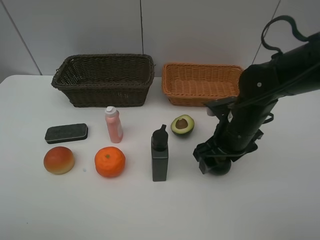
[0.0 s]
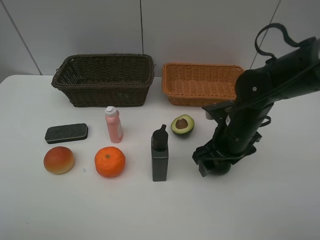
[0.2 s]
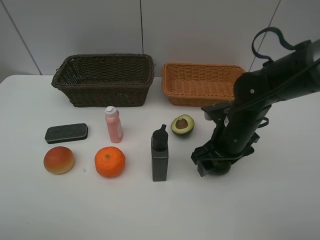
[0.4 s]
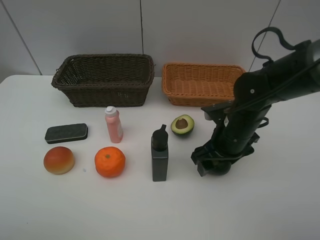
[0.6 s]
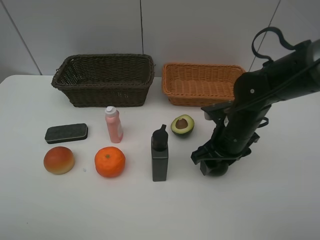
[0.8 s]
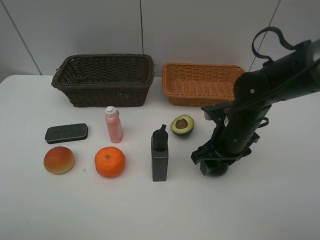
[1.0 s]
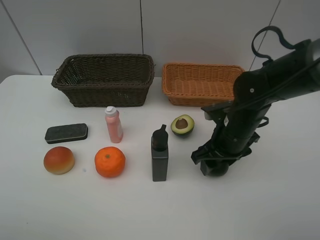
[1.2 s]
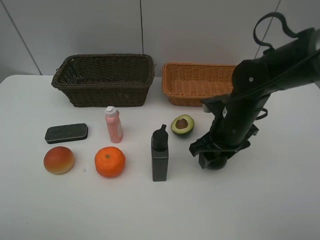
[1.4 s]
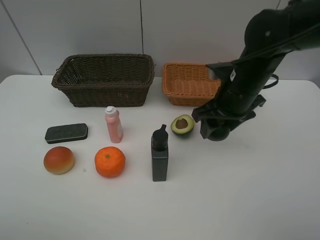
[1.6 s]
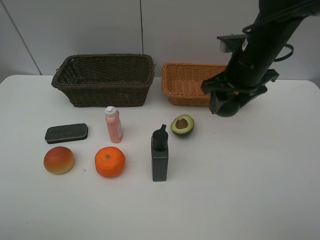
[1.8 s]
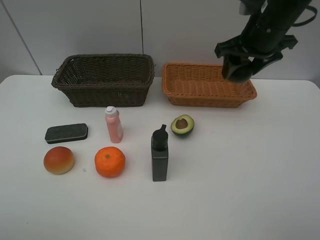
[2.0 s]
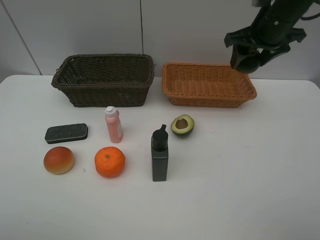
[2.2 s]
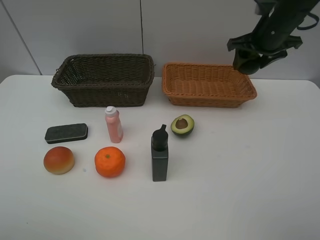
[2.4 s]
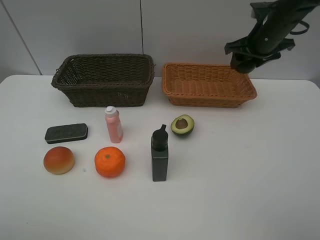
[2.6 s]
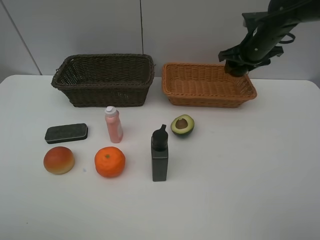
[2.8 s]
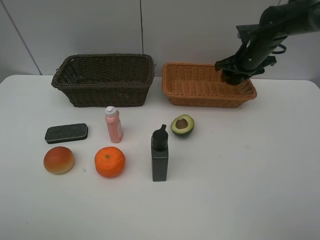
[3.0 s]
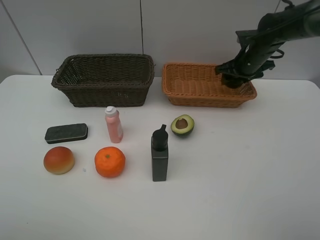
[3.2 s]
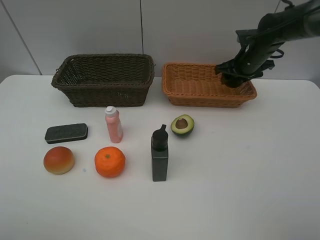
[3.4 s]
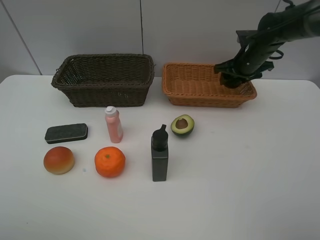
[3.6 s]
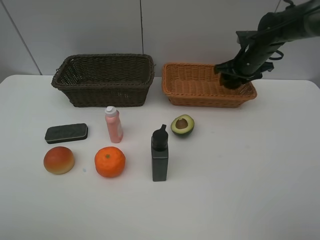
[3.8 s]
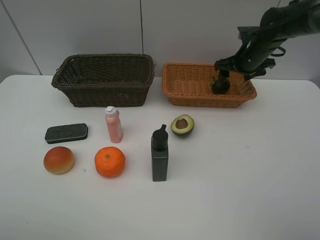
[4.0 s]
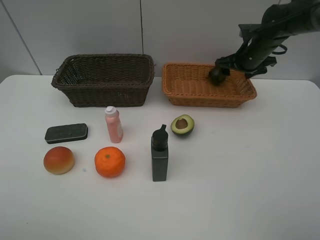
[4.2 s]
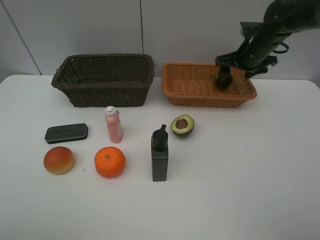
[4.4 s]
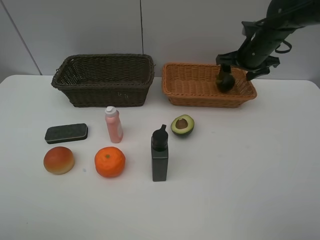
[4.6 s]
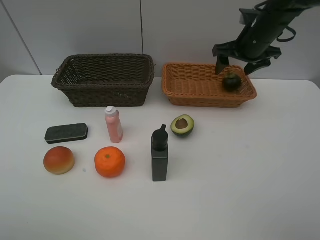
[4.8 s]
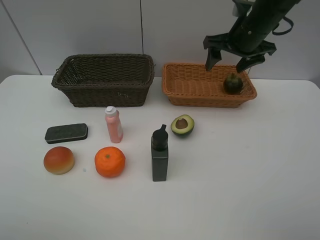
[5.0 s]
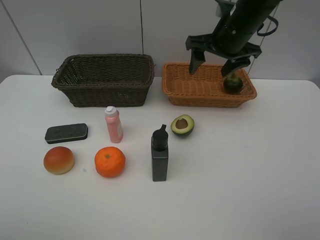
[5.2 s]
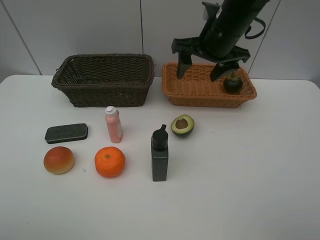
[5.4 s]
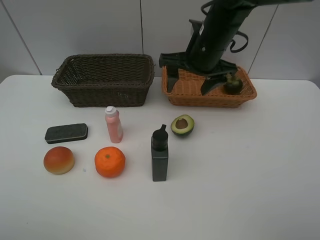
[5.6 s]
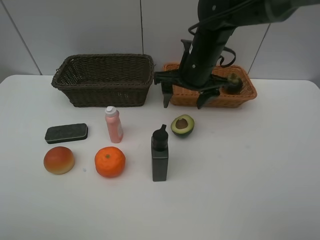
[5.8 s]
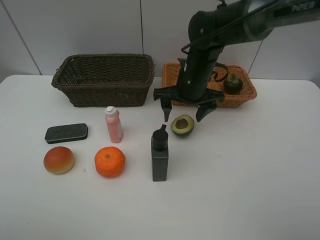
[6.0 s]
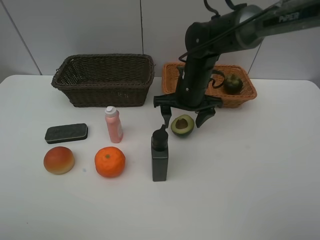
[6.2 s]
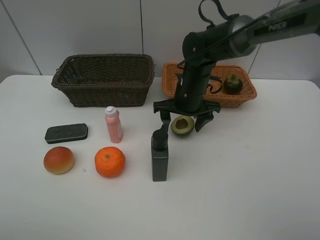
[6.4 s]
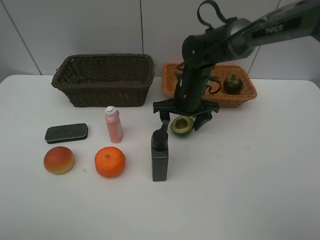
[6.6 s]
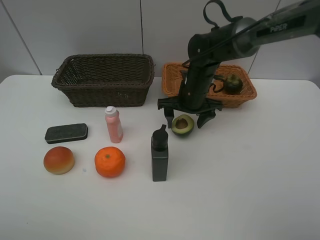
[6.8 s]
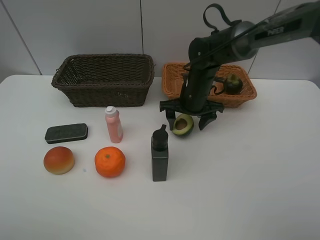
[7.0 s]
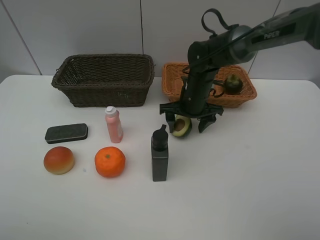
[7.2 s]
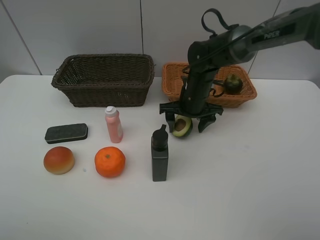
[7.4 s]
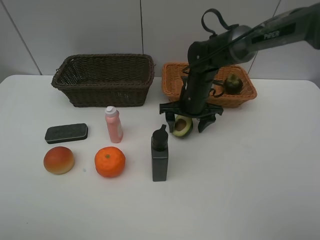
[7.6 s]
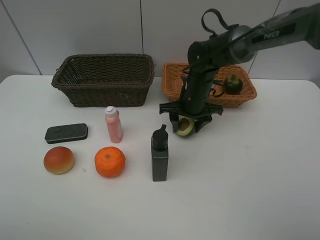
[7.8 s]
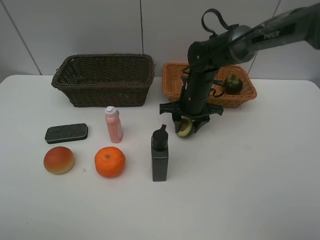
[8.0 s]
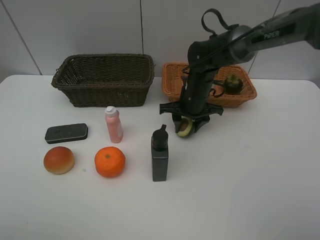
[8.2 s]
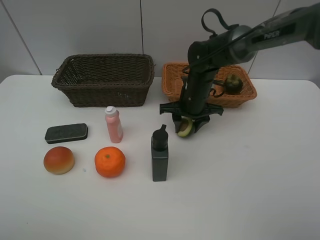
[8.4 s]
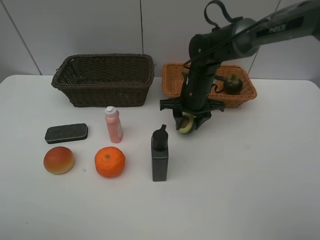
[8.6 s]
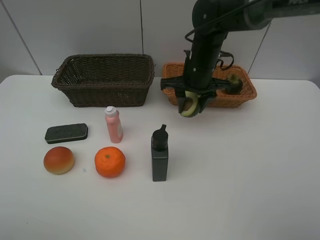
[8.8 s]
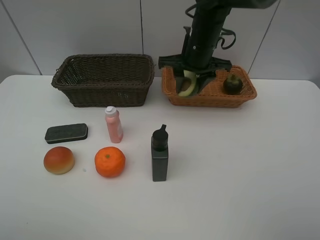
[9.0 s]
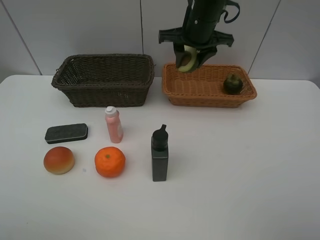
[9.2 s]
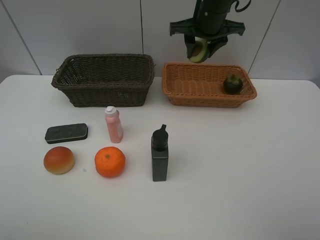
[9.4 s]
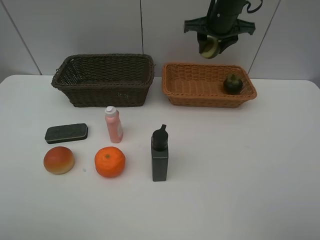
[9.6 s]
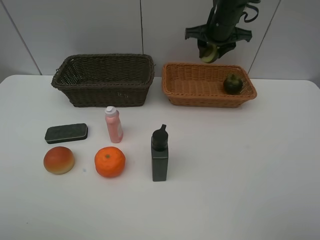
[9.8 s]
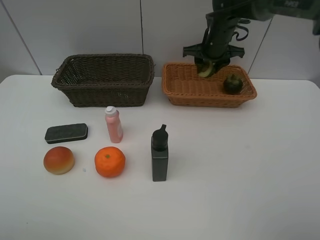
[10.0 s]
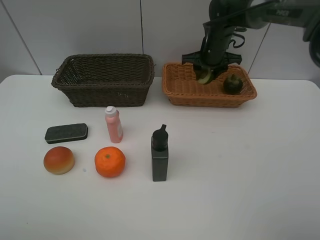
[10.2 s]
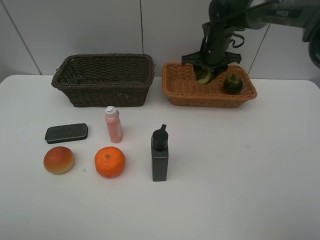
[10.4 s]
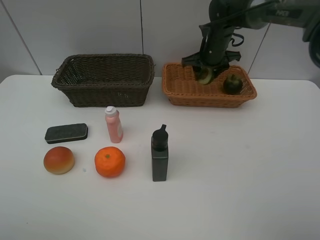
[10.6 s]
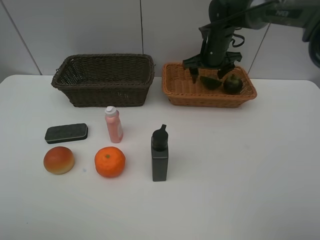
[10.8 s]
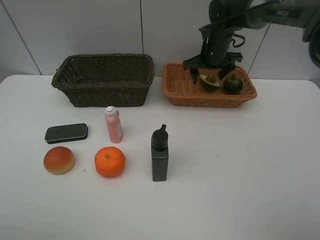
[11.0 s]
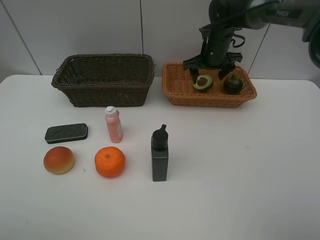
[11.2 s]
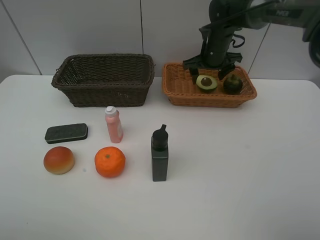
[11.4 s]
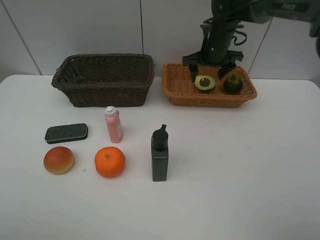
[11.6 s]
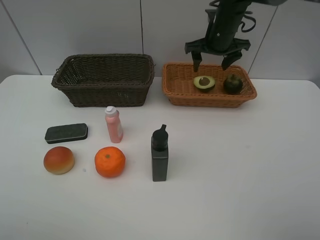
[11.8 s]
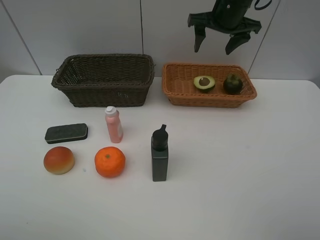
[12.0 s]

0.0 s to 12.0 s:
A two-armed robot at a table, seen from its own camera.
Task of the whole recording: Place multiple objects separately in different baskets.
Step, 1.6 to 4.2 s: Place the mangosteen in the light basket with right gripper.
Step, 4.4 to 8.6 s: Pick up the avocado with right gripper.
Step, 8.8 to 10.8 s: Place the avocado in the light basket with right gripper.
0.0 to 1.6 s: The right gripper shifts some 10 cm upward.
1.6 to 3.0 s: The right gripper is displaced forward and to the right by some 20 cm.
3.0 to 4.4 s: The grippers stay close to where they were, moving slightly.
4.4 to 6.0 s: The right gripper goes about 20 cm to the left and backward.
6.0 to 7.6 s: The right gripper is displaced downward by some 5 cm.
7.6 to 9.0 s: The right gripper goes about 10 cm upward, and closes its fingers.
9.0 to 10.4 s: The right gripper is displaced forward, to the right and downward by approximately 10 cm.
10.4 to 12.0 s: The right gripper heads upward and backward, covering roughly 15 cm, and opens up.

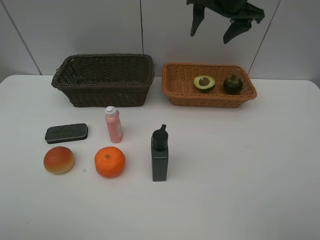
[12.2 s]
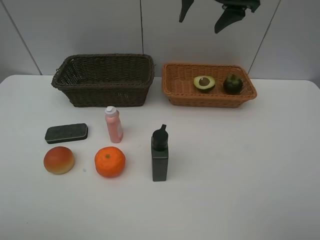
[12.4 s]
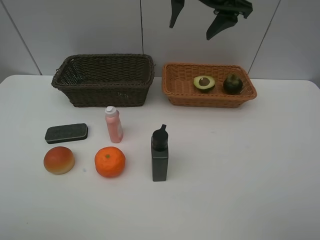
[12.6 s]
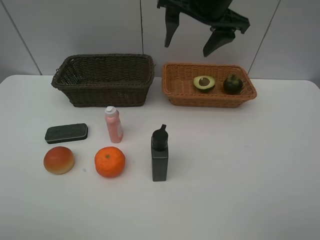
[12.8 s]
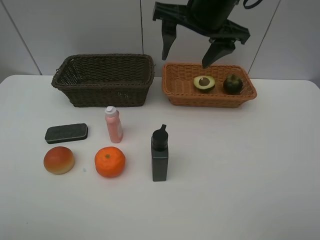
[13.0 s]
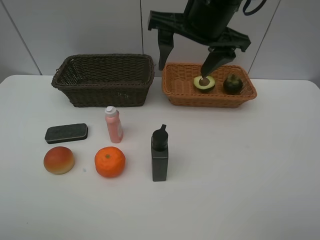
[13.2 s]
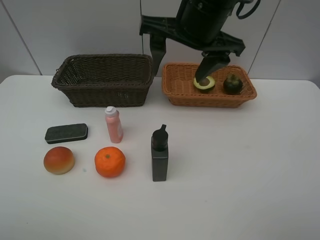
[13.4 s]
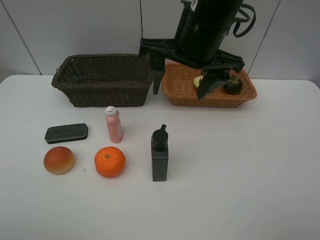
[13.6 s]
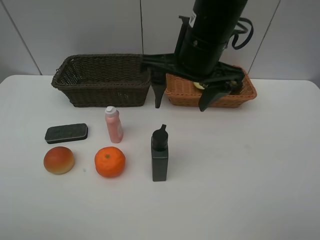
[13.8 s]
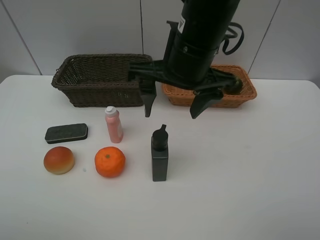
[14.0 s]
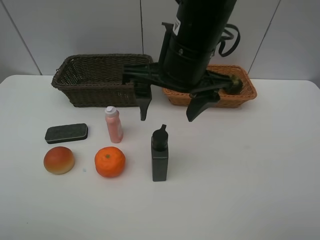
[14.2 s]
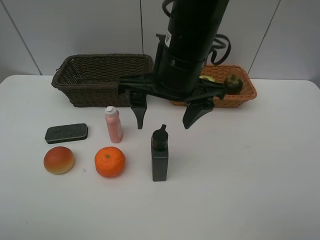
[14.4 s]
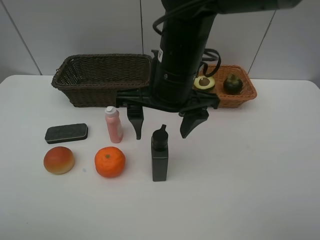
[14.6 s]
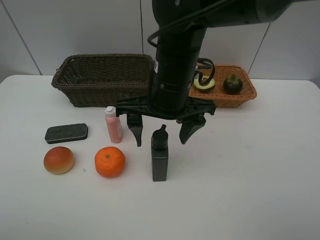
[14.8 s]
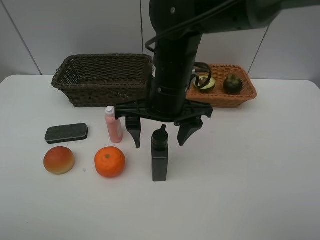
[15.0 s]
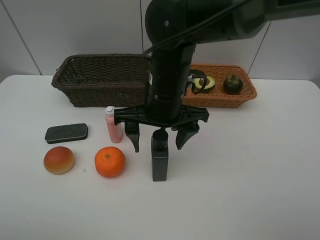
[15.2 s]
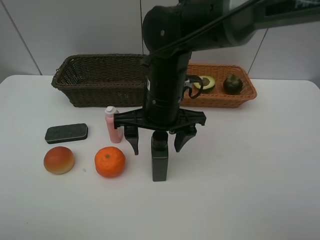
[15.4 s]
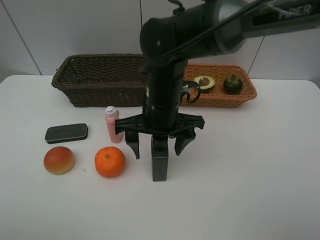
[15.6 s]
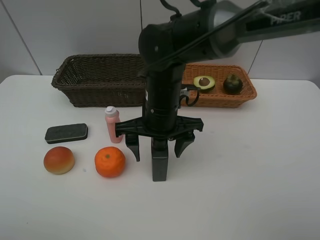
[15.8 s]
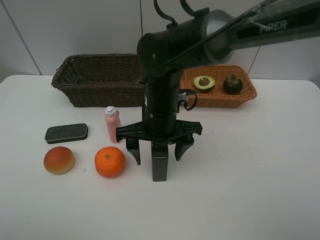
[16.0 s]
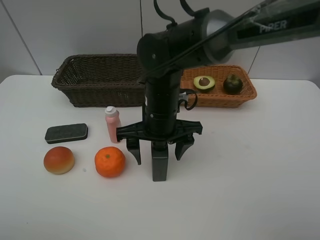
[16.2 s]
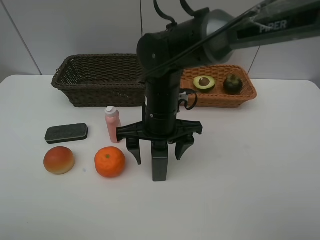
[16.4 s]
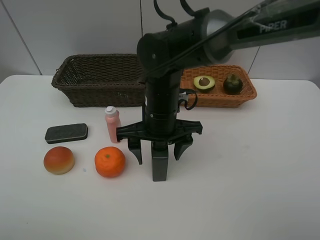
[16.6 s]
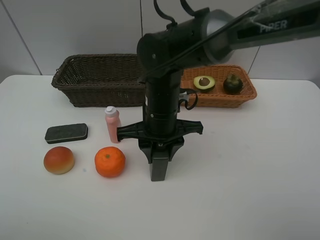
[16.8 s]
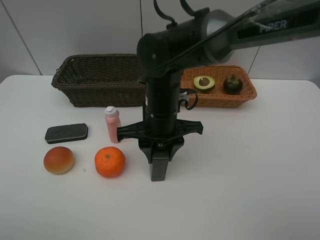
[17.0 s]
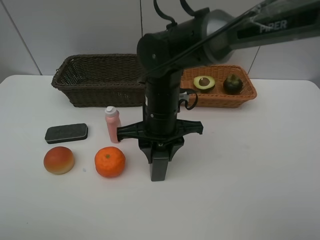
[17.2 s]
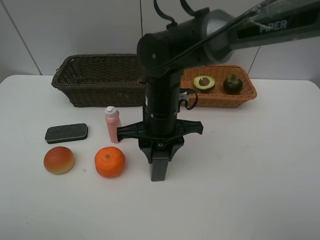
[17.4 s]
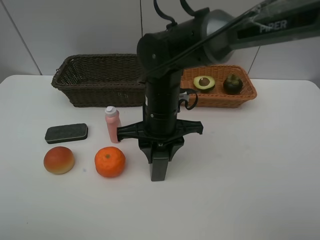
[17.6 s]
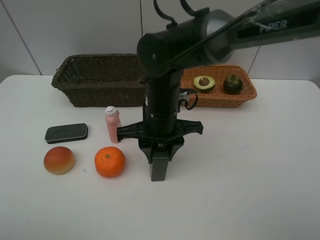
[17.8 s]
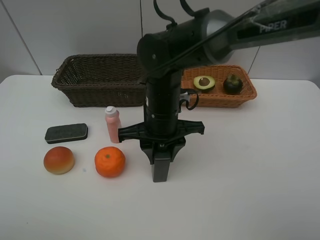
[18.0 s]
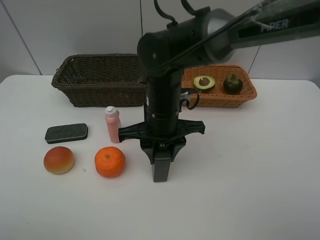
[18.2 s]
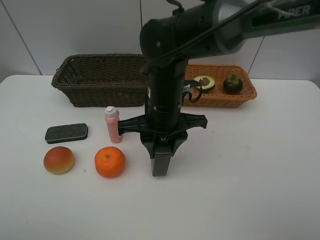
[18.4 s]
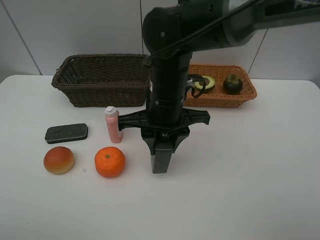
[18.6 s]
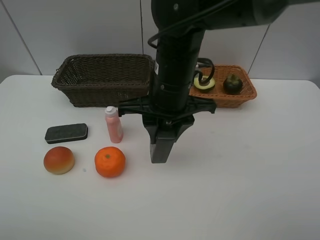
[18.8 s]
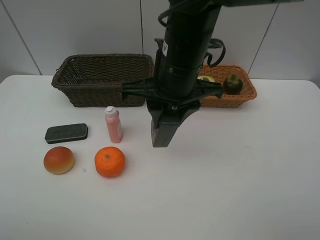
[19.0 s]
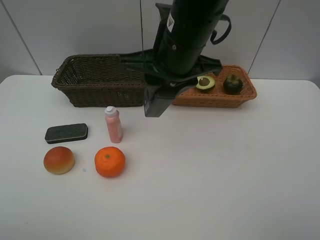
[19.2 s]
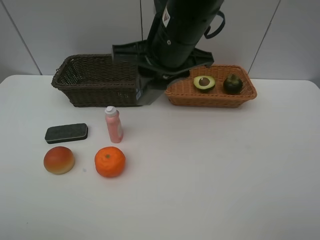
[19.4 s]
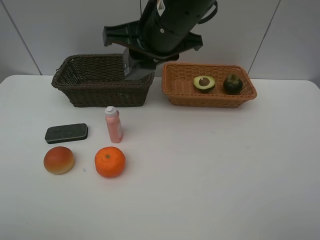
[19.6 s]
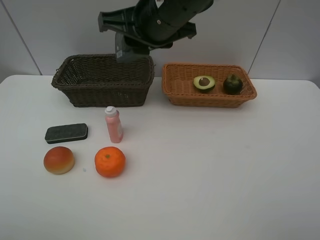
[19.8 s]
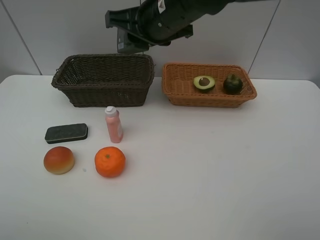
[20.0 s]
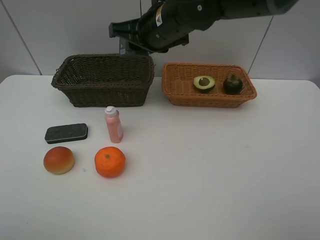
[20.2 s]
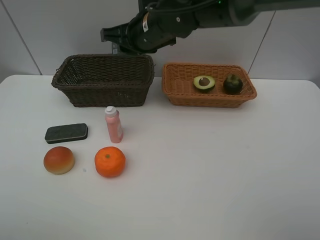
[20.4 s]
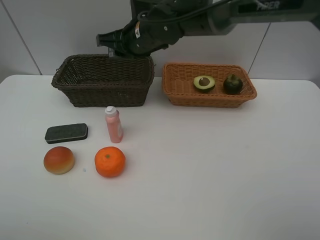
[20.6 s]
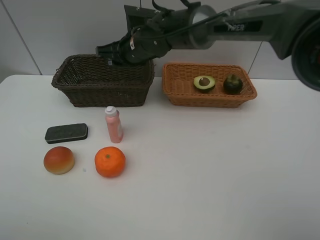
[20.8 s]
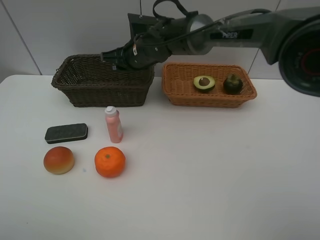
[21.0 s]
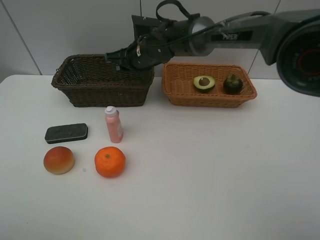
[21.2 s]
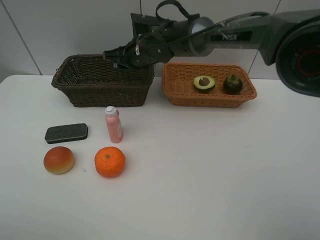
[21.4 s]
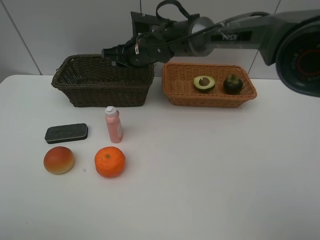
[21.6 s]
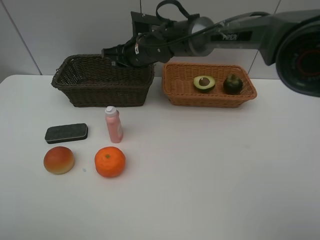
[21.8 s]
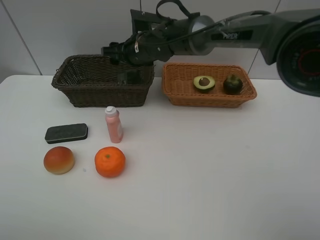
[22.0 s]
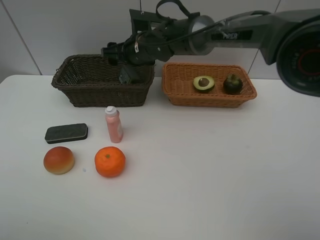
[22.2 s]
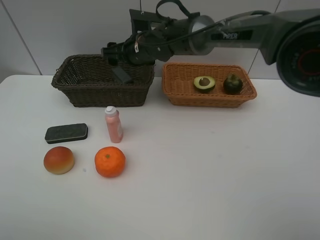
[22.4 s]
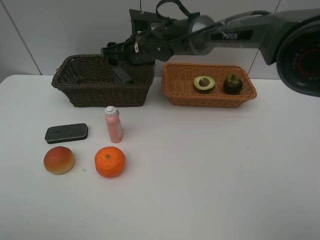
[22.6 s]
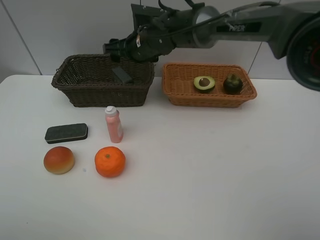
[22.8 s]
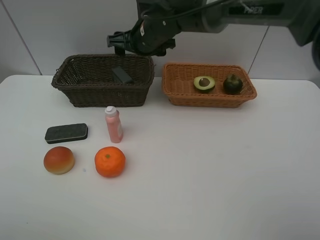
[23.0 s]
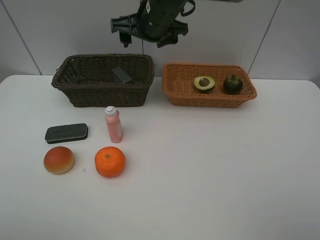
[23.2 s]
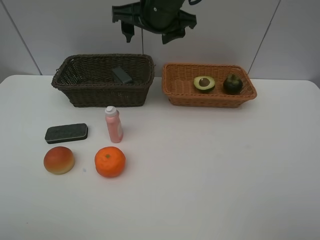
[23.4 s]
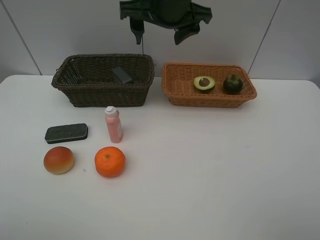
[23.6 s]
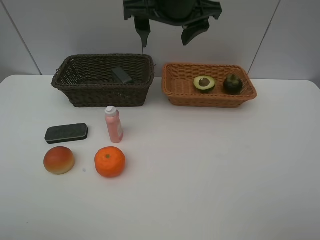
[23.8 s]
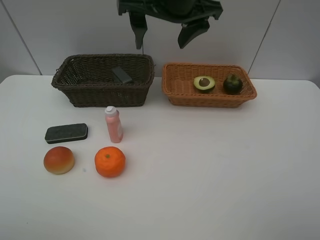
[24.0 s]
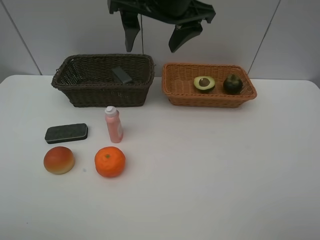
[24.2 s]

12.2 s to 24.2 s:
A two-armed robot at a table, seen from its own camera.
Task of the whole recording: Place multiple objects separately in different baskets.
Step, 12.2 to 18.6 s: Pick up the hard facial cleanser with right gripper.
Step, 18.8 to 22.4 s: Place the hard facial cleanser in the dark basket with right gripper.
12.2 to 13.8 s: The right gripper travels backward and to the left by about 15 cm.
13.8 to 15.2 s: The right gripper goes approximately 10 cm downward.
15.2 to 16.6 s: The grippers make only small movements.
16.6 to 18.2 s: The right gripper closes its fingers.
18.2 to 19.8 s: The right gripper moves upward, approximately 15 cm.
19.8 to 21.2 s: The right gripper shifts some 20 cm forward and downward.
21.2 to 22.6 s: The right gripper opens.
22.6 to 24.2 s: The right gripper goes roughly 20 cm upward and backward.
